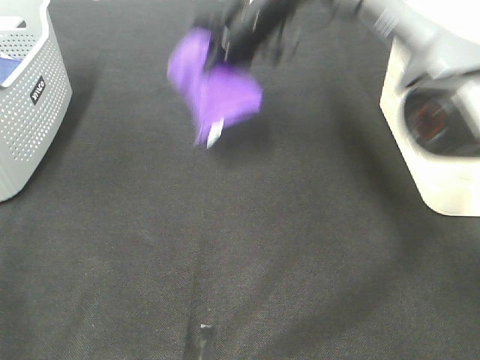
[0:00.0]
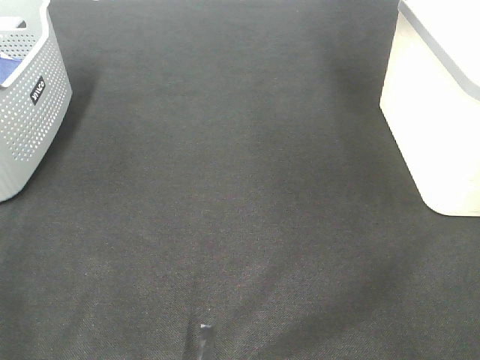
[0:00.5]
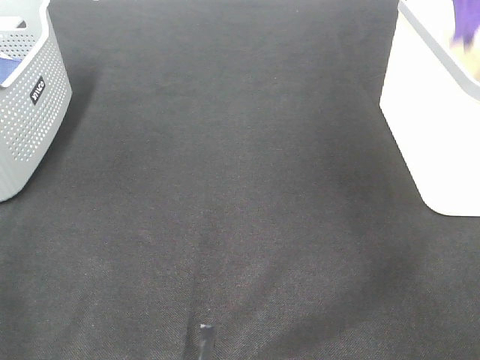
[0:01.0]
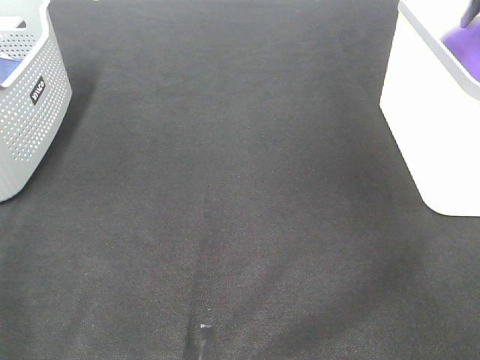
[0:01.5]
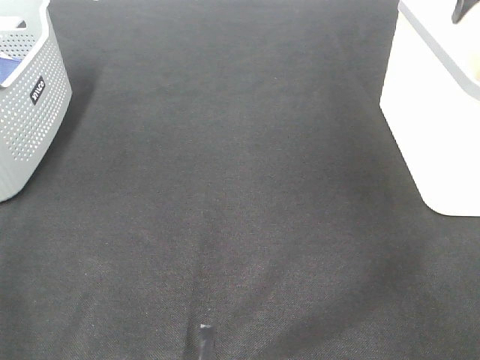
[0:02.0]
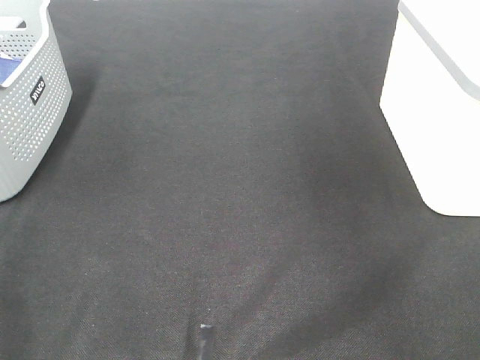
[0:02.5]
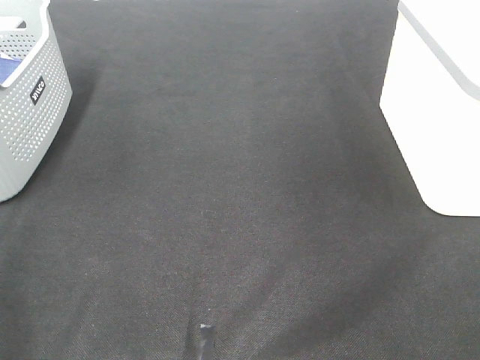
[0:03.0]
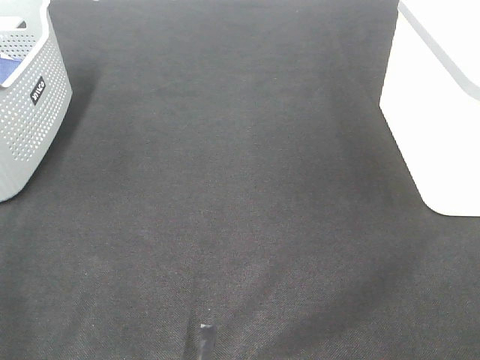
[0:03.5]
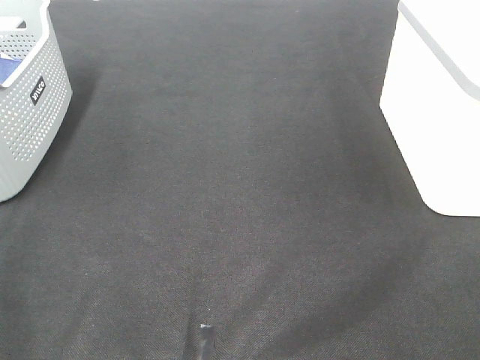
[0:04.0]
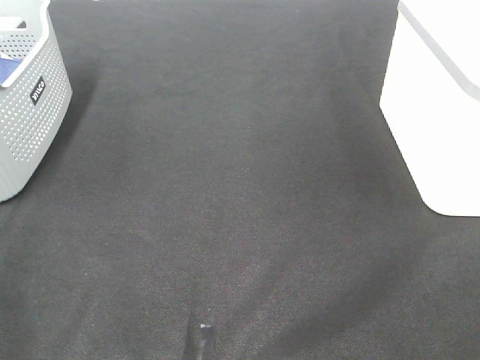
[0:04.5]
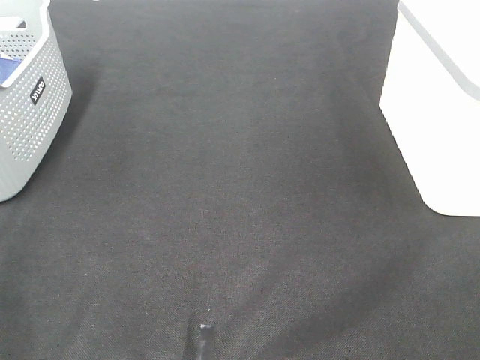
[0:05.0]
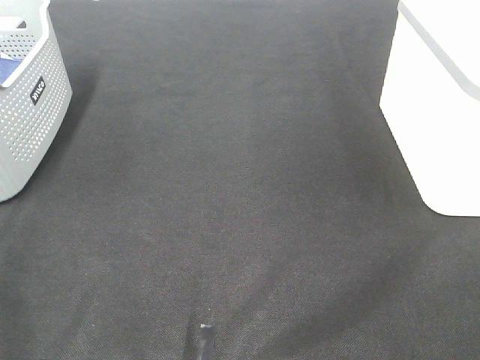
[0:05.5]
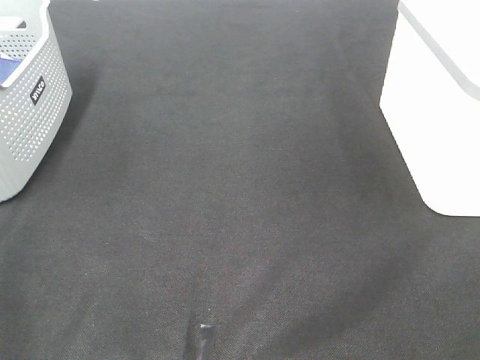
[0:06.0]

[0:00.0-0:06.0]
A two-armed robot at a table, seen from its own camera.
Step, 0:00.0 to 0:01.5: Right hand: place the purple towel in right basket.
0:00.0 to 0:02.0: The right gripper travels to the right by about 35 cm, and opens its fingers.

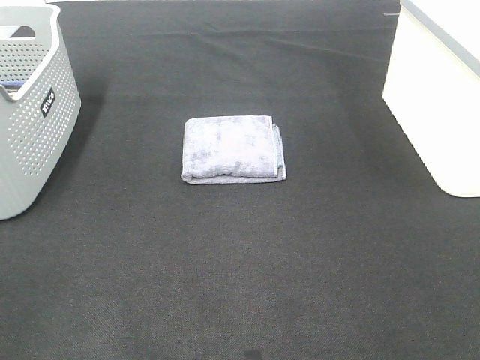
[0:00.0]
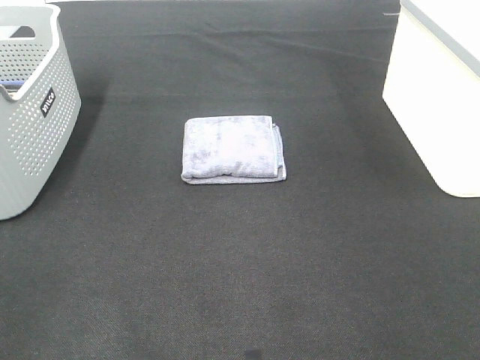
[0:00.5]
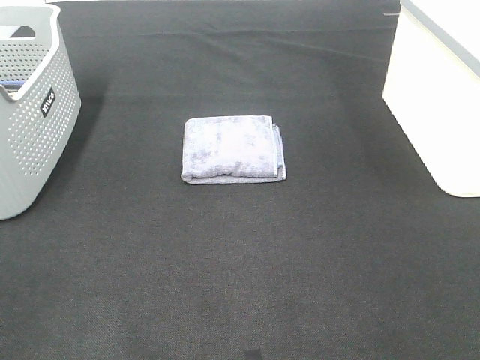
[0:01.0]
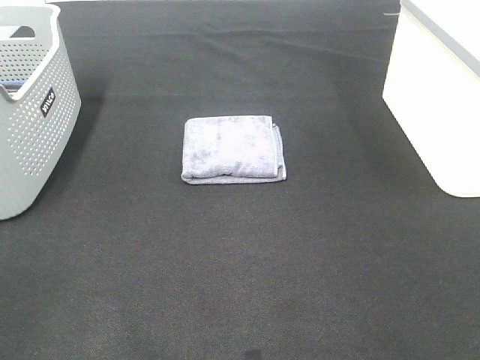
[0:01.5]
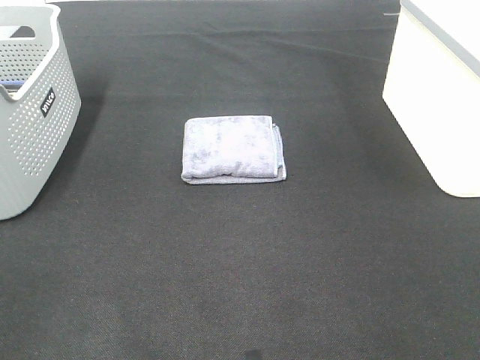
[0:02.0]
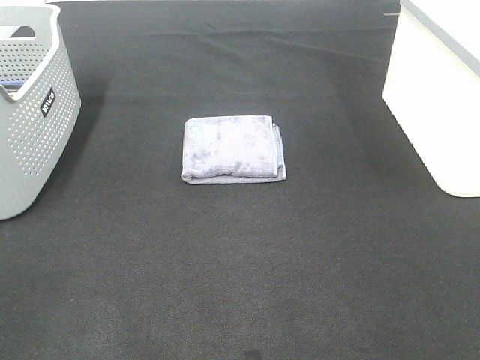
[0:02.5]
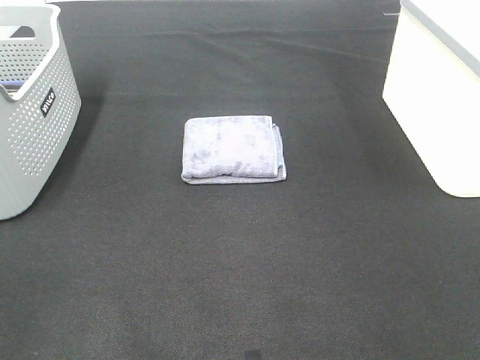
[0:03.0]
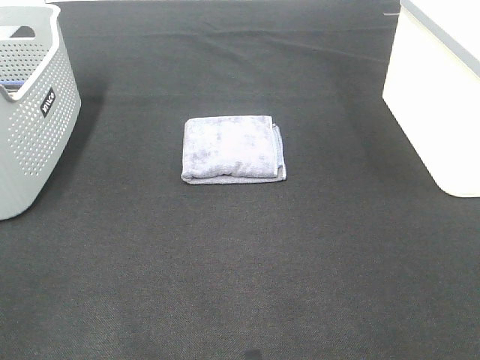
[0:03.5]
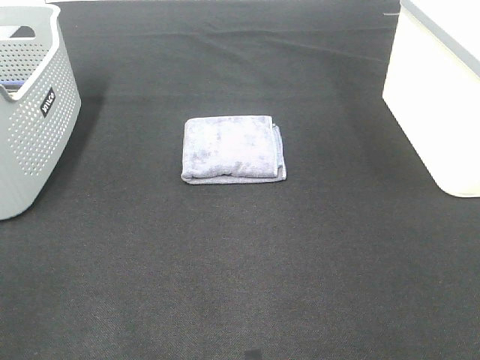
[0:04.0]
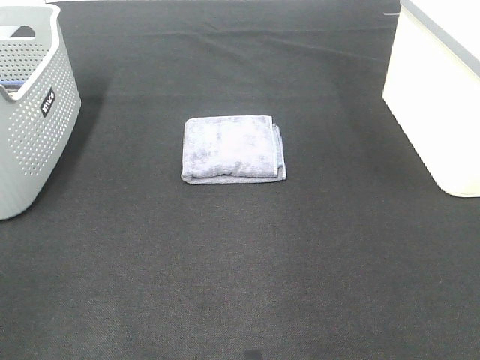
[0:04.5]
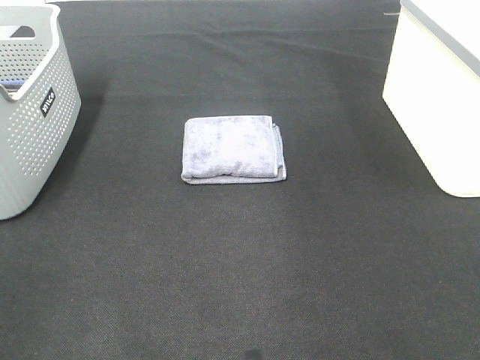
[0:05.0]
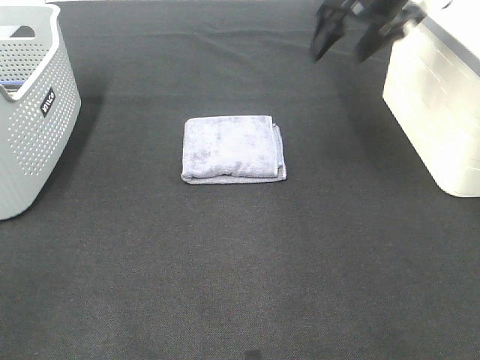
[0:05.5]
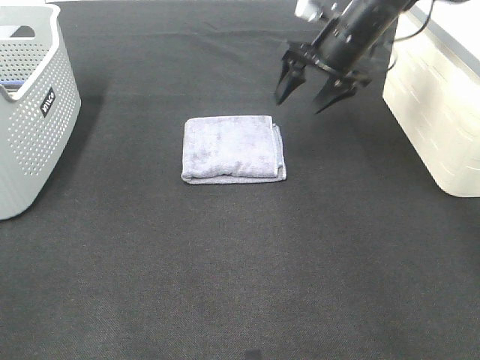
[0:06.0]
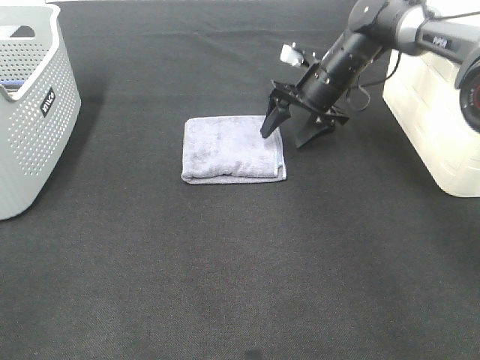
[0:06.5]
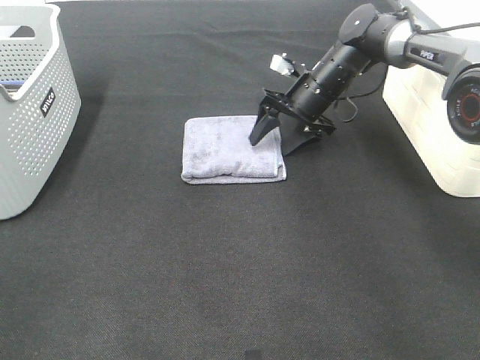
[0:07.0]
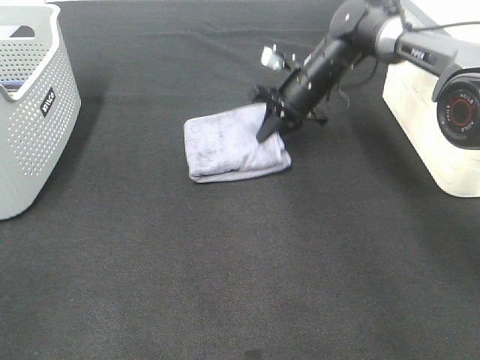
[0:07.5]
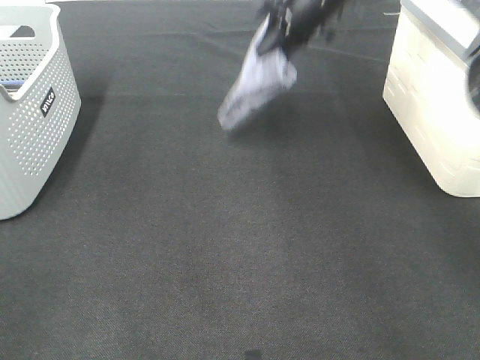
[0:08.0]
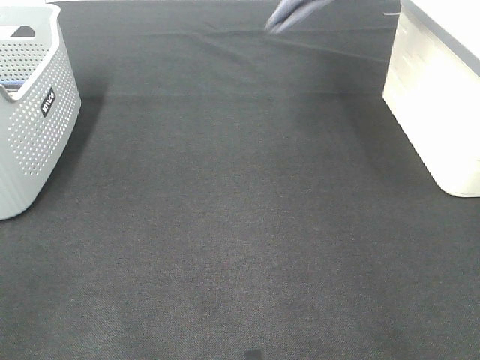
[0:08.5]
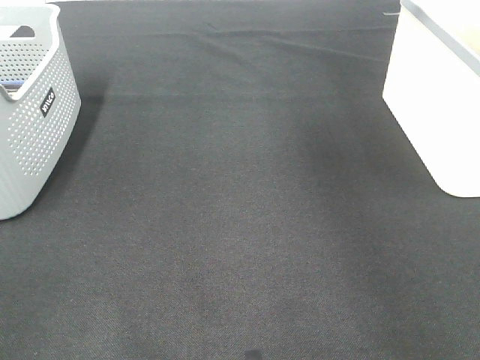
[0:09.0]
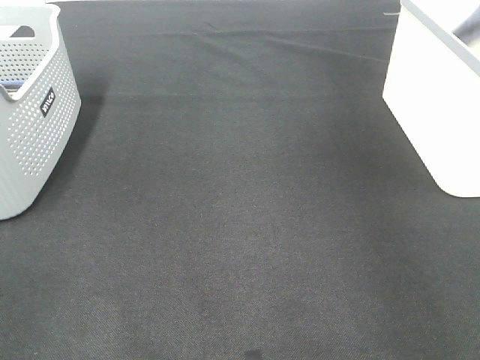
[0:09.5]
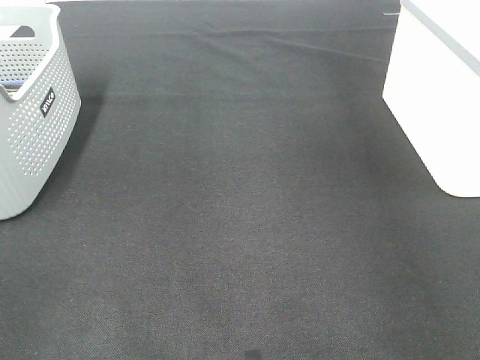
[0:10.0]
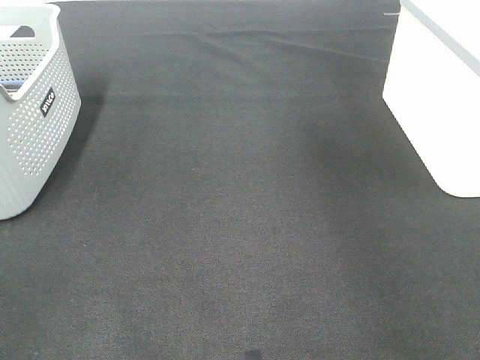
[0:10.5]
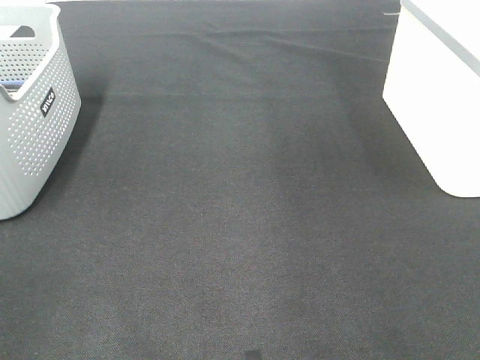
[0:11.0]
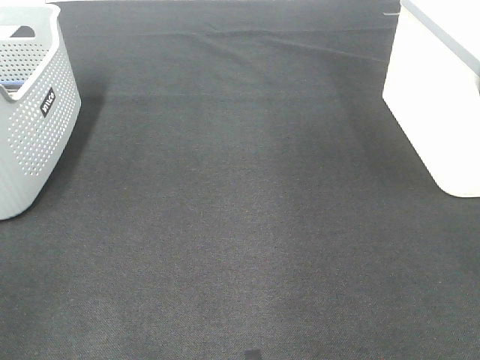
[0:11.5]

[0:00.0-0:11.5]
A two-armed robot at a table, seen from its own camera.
Step, 0:00.0 to 0:07.0: Right hand: grab the folded grey towel.
Step, 0:07.5 to 0:10.0: Right hand: place the grey towel in right basket.
0:00.0 to 0:02.0: Both grippers stay put.
0:04.0 to 0:06.0: The right gripper moves forward and downward, about 40 cm.
0:06.0 to 0:07.5: The right gripper heads downward, covering roughly 5 cm, and closes its fingers.
0:07.5 to 0:09.5: The right gripper heads to the right and upward, covering approximately 35 cm.

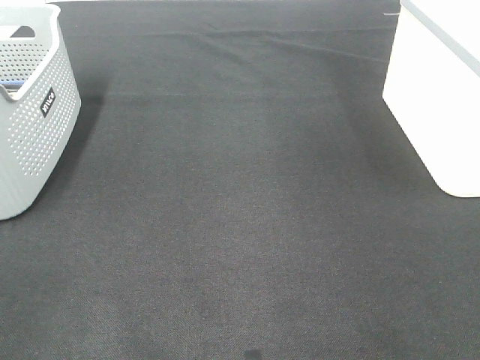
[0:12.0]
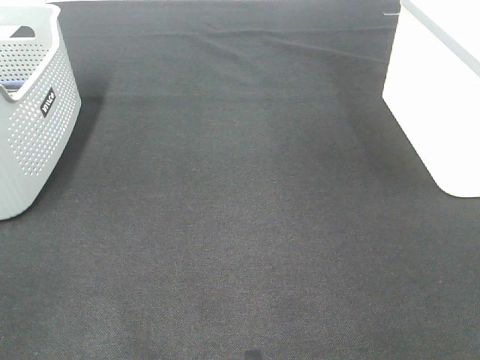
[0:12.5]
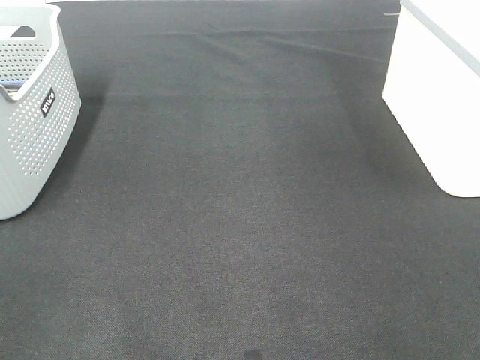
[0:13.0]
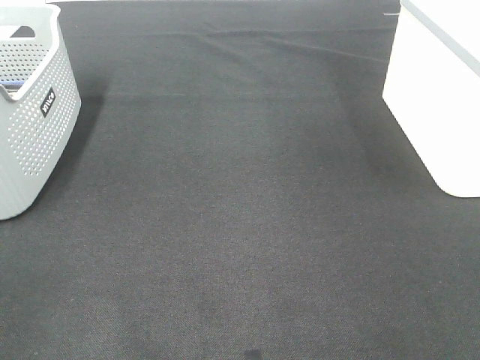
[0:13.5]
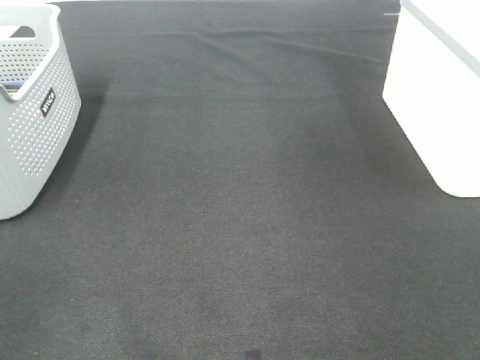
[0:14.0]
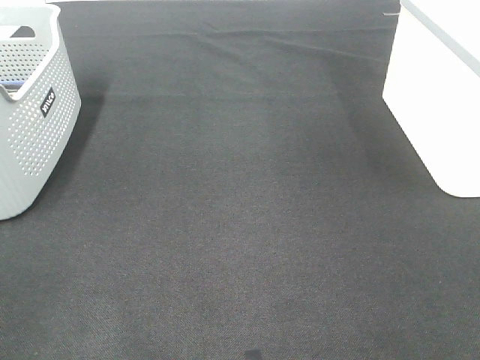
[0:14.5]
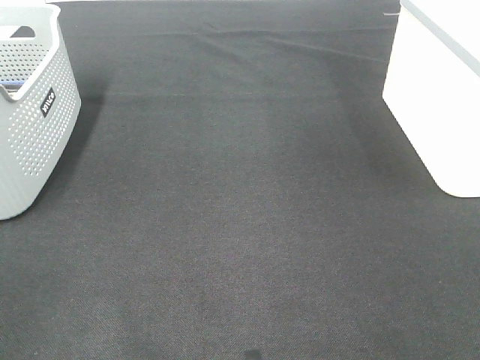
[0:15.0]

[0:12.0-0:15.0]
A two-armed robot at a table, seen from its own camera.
0:13.5 to 0:15.0: The two grippers keep their place.

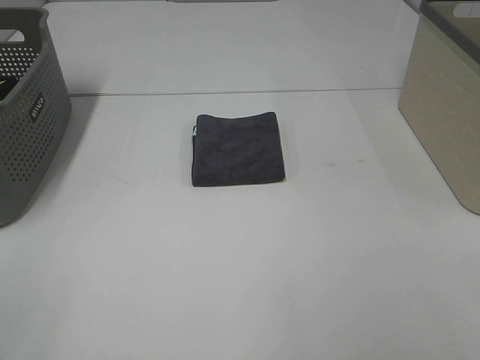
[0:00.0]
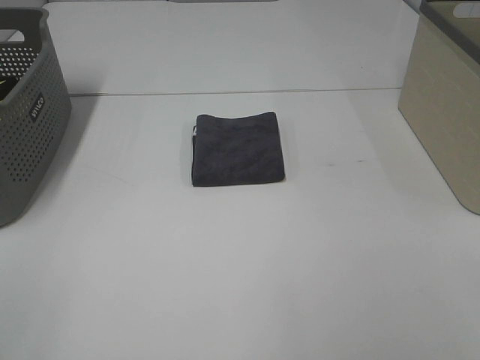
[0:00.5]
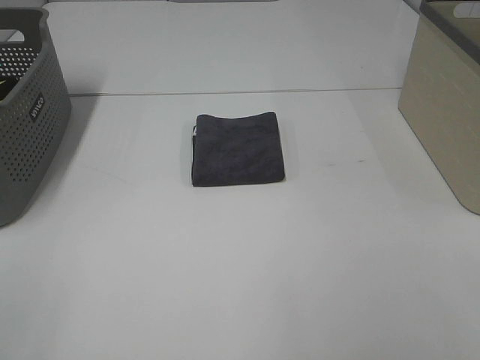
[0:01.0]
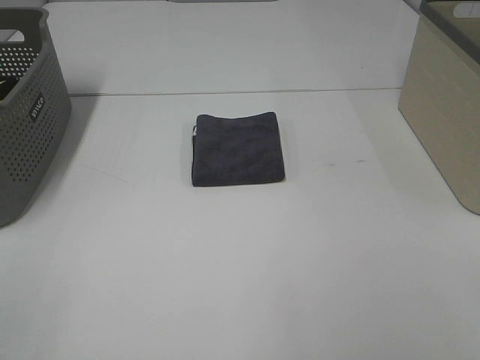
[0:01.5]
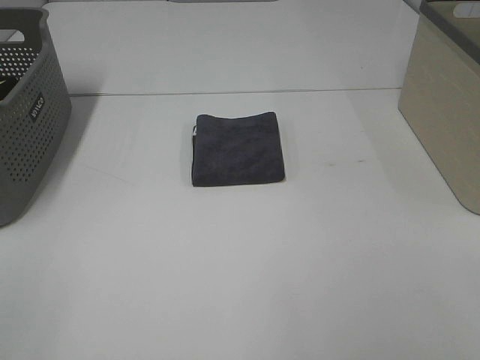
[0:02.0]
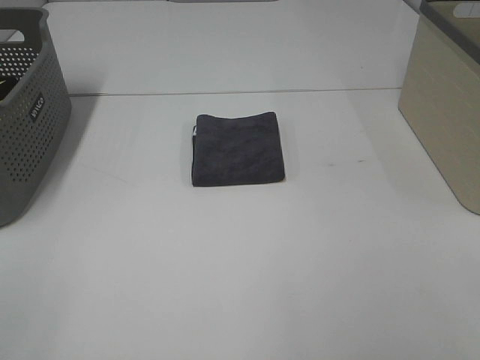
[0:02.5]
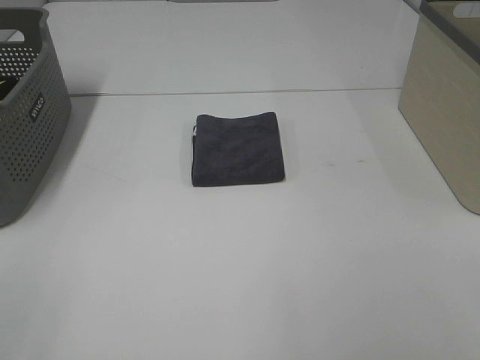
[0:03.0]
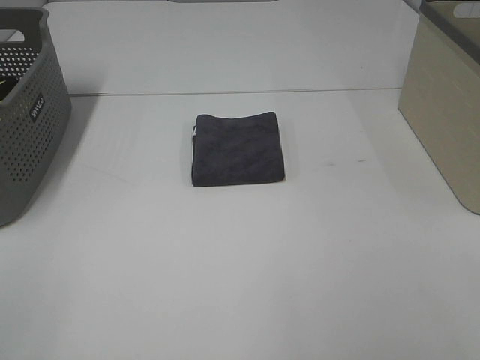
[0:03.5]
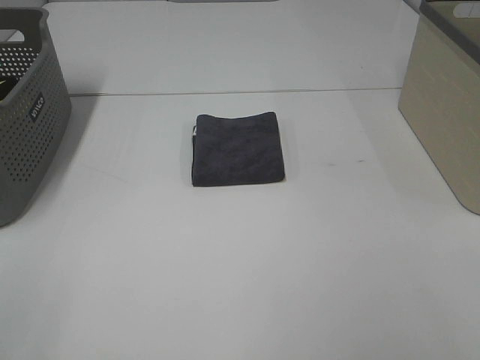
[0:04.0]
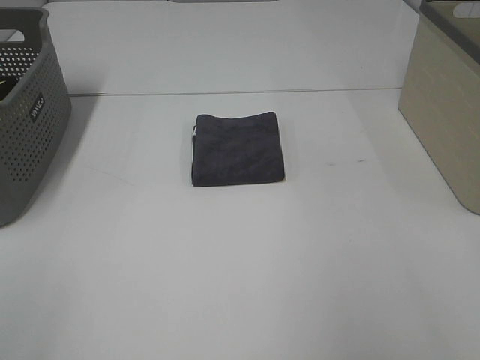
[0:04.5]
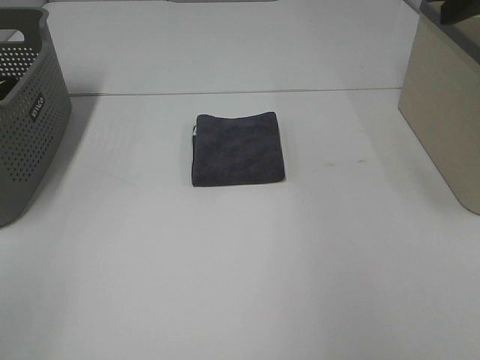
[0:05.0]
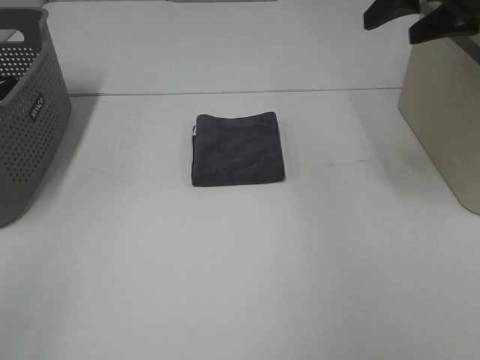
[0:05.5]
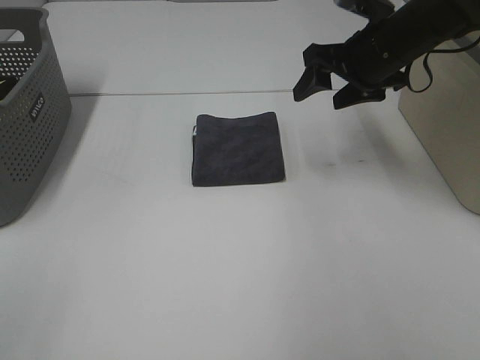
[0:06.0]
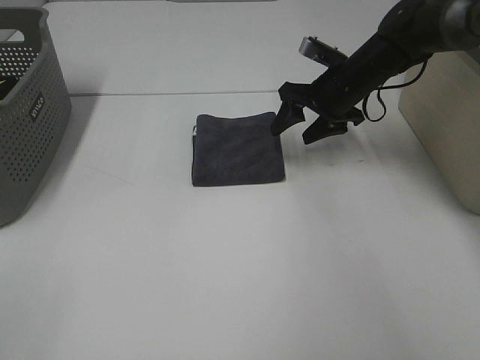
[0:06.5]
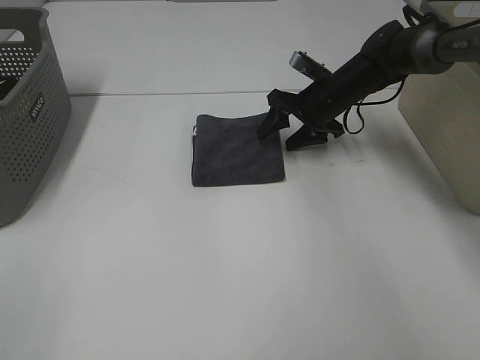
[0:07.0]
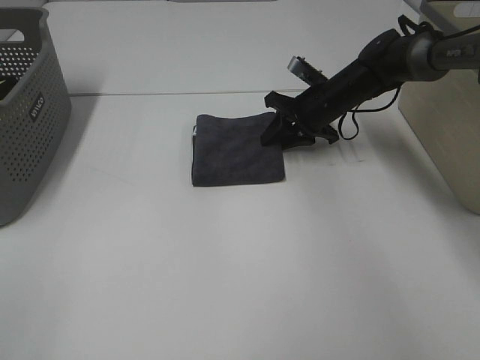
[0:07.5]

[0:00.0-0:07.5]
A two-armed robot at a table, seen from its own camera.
0:00.0 to 0:02.0: The two grippers keep their place.
0:04.0 to 0:05.5: The right gripper is displaced forward by approximately 35 cm.
0:05.5 to 0:07.5: The right gripper heads downward and forward, covering about 25 cm, and closes.
